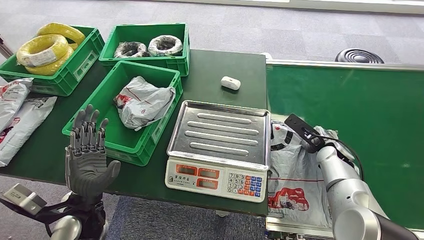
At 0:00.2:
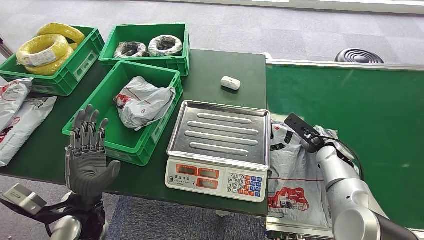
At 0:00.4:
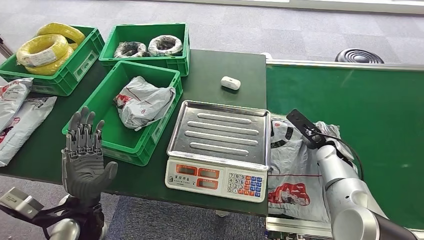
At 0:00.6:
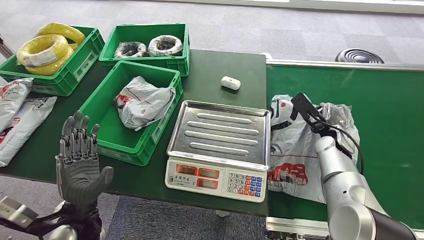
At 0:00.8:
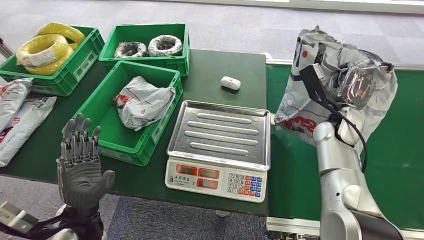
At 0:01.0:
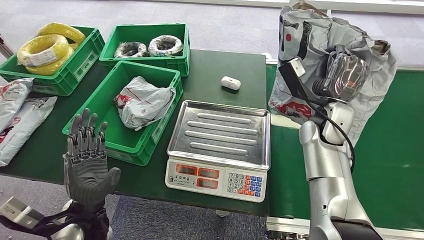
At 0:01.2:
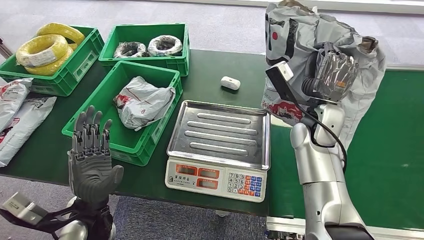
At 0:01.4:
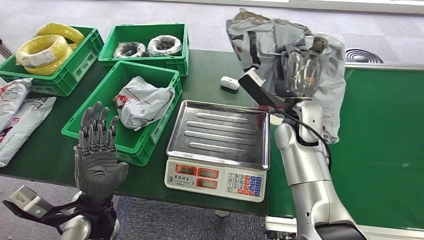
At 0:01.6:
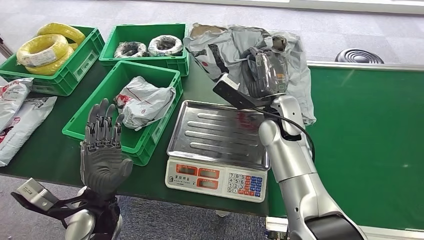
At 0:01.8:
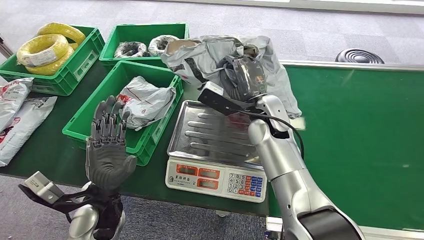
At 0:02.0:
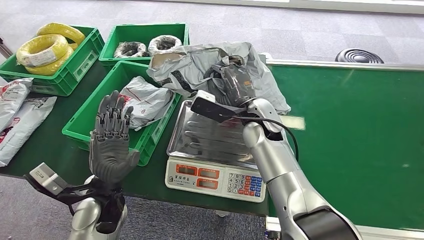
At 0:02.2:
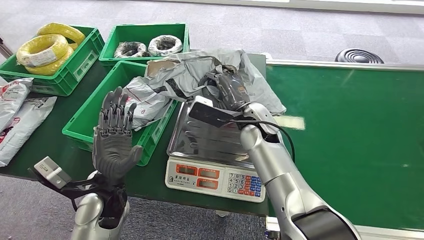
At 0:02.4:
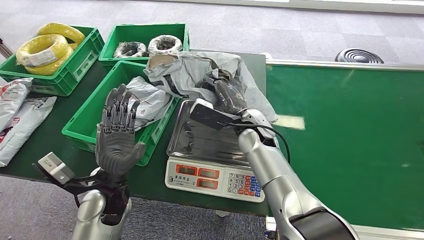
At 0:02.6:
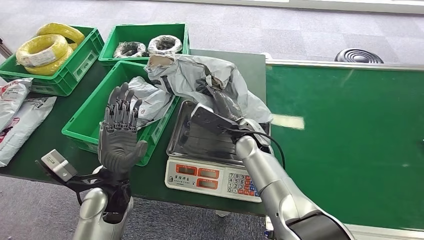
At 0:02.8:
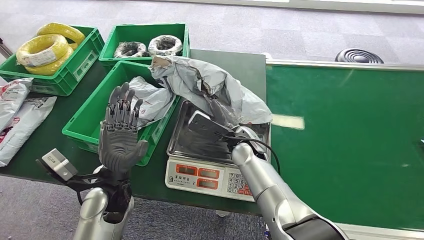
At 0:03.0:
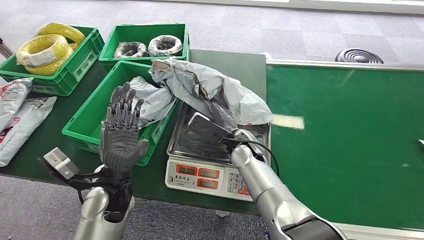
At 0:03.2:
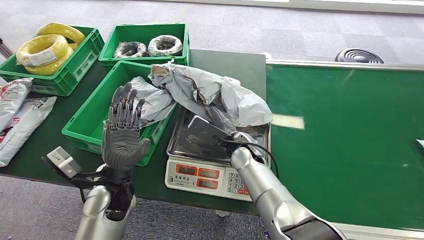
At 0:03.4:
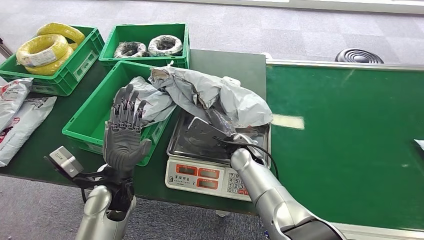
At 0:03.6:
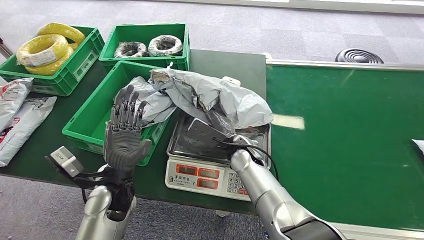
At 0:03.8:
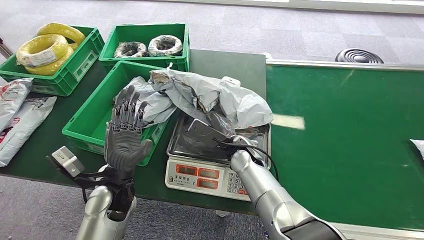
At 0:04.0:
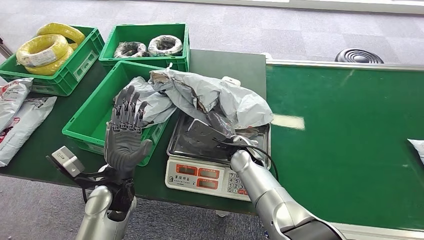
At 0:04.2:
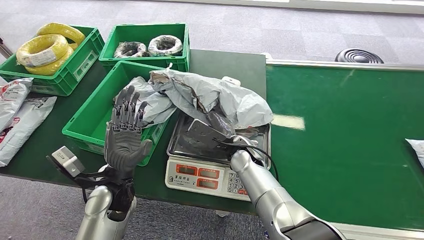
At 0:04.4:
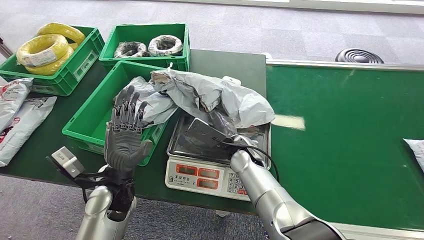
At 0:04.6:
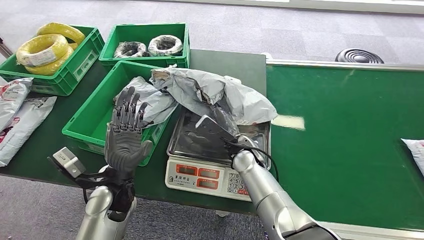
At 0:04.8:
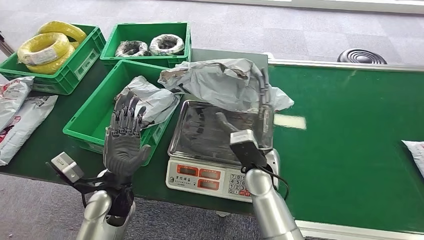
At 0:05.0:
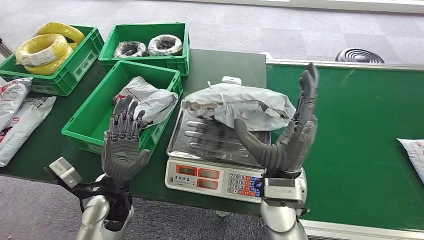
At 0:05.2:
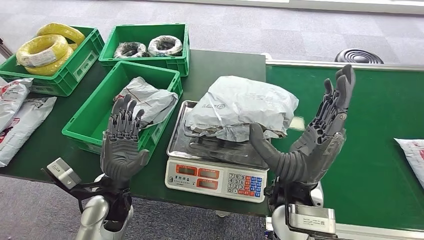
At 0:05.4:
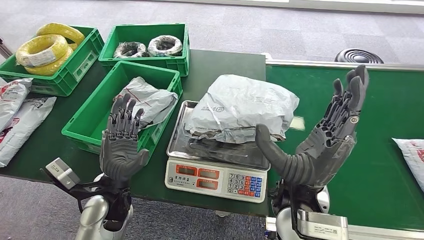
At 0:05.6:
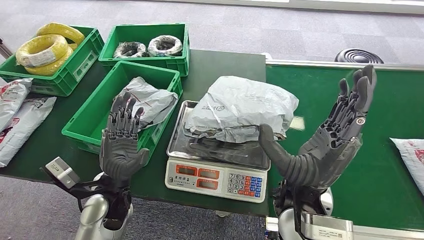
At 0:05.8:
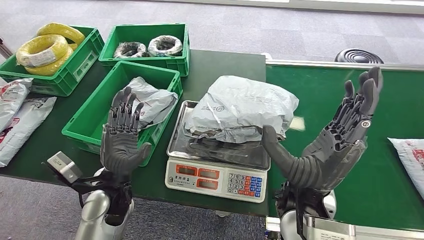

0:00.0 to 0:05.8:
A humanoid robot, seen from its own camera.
Step, 0:01.2 to 0:05.8: Place the package onto the inbound machine.
0:02.8 to 0:04.4: The hands stay close to where they were, moving slightly.
0:04.4 to 0:05.8: The right hand moves backward and upward, some 20 cm.

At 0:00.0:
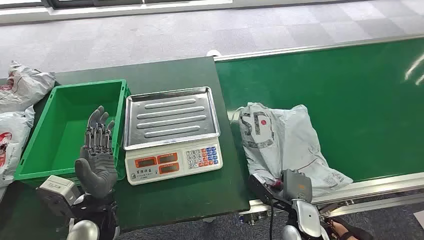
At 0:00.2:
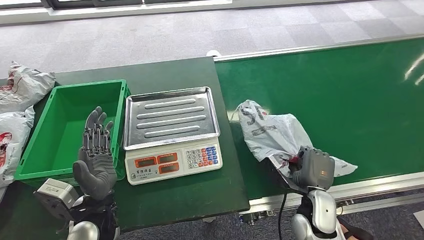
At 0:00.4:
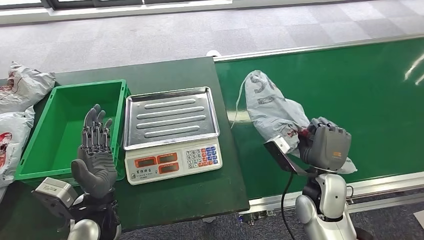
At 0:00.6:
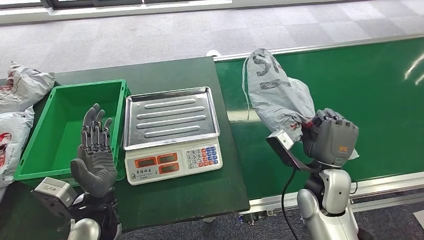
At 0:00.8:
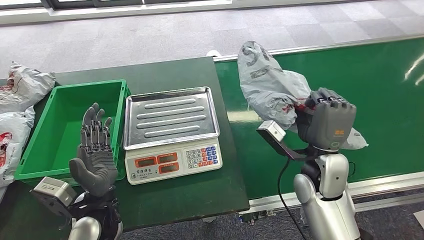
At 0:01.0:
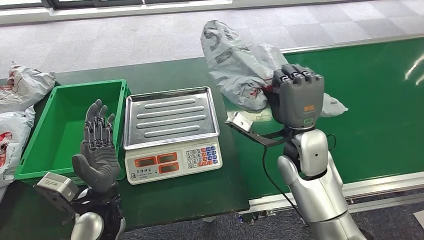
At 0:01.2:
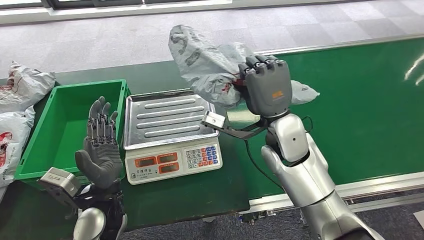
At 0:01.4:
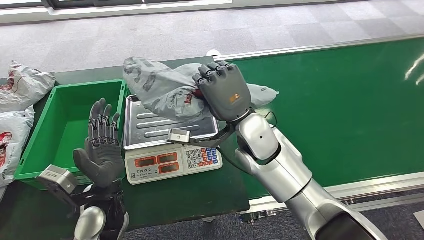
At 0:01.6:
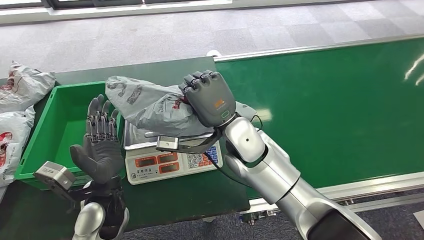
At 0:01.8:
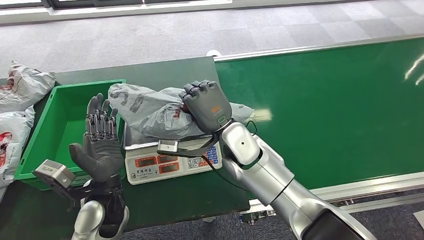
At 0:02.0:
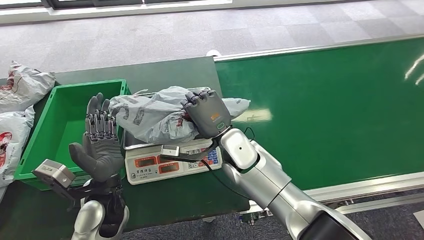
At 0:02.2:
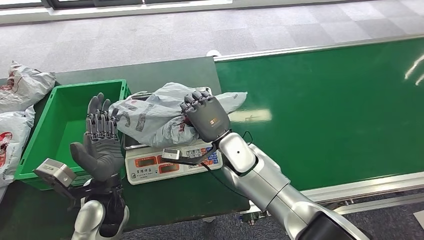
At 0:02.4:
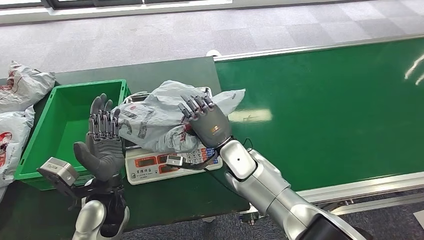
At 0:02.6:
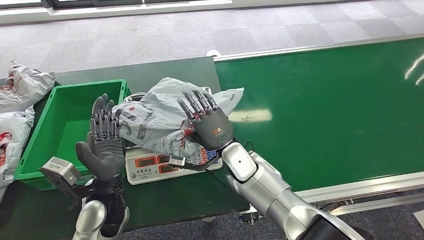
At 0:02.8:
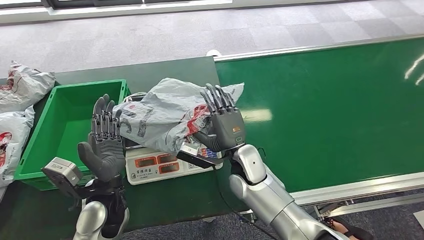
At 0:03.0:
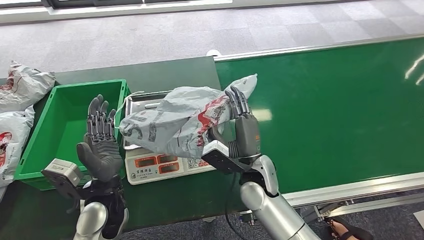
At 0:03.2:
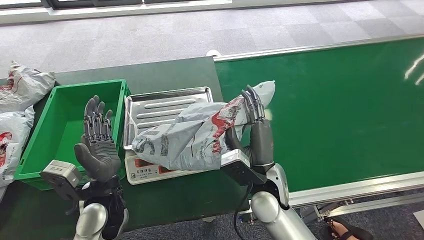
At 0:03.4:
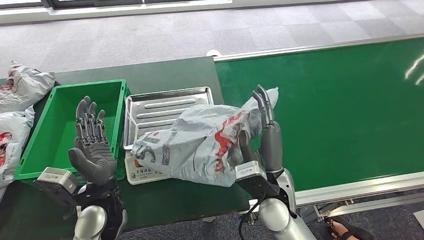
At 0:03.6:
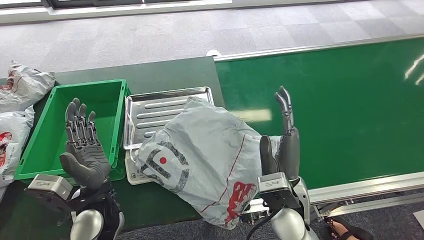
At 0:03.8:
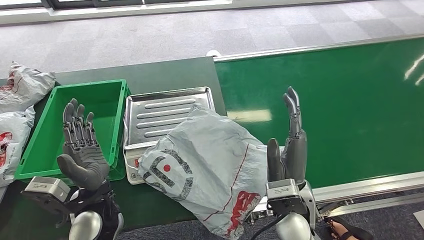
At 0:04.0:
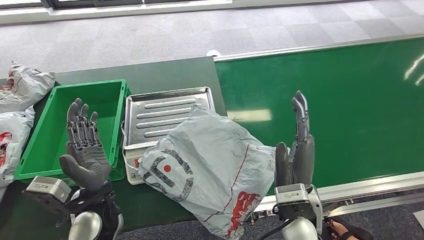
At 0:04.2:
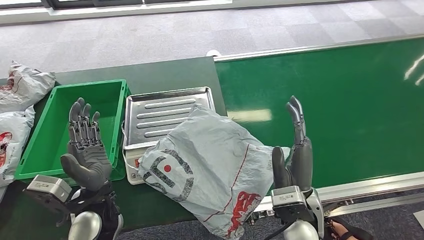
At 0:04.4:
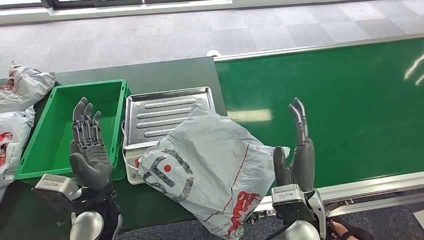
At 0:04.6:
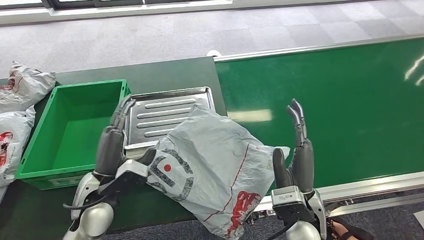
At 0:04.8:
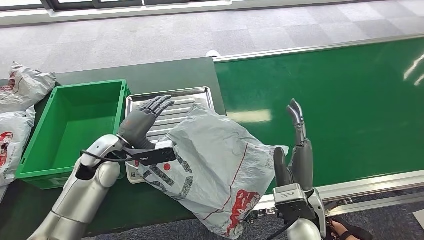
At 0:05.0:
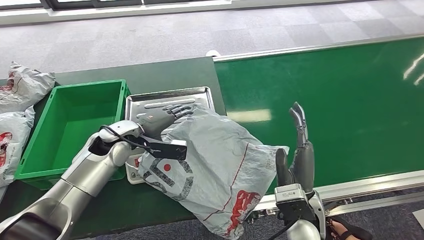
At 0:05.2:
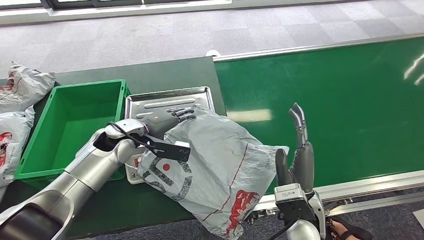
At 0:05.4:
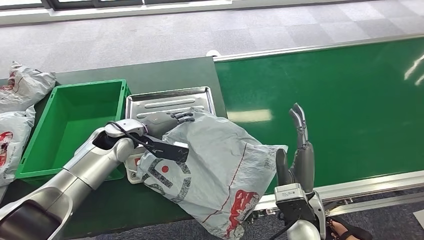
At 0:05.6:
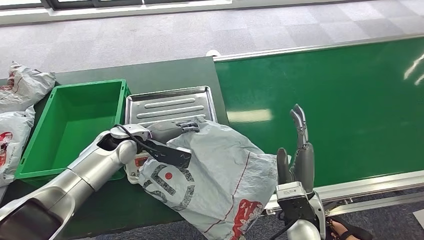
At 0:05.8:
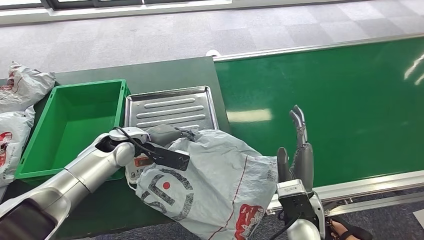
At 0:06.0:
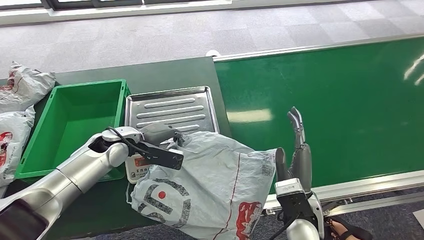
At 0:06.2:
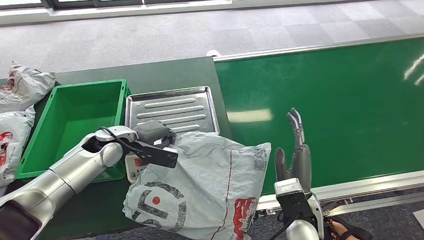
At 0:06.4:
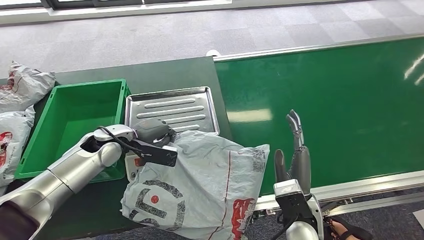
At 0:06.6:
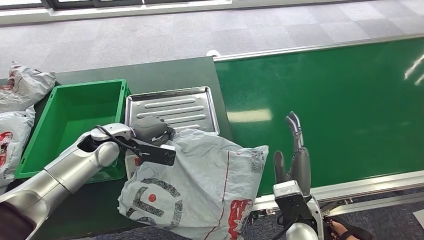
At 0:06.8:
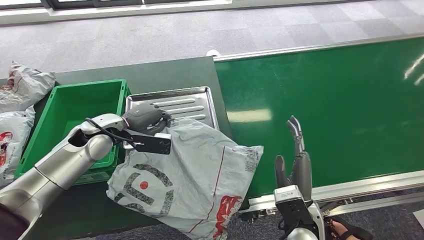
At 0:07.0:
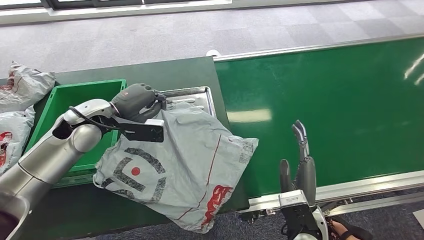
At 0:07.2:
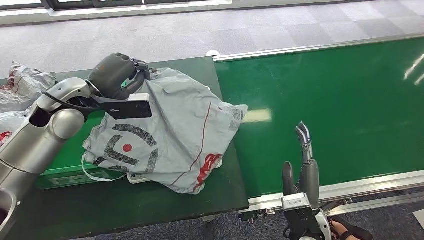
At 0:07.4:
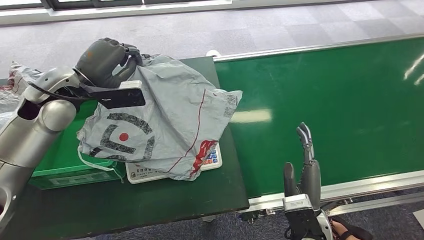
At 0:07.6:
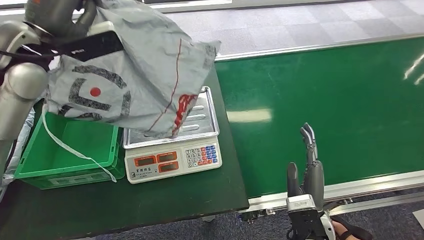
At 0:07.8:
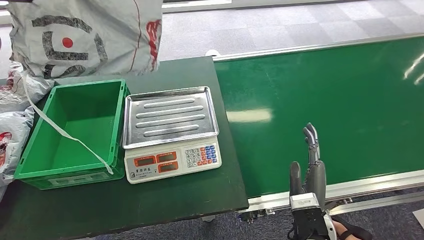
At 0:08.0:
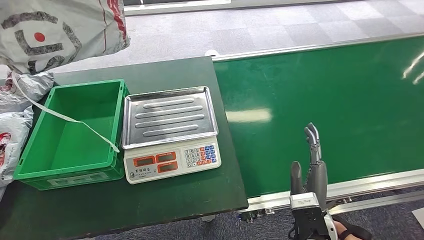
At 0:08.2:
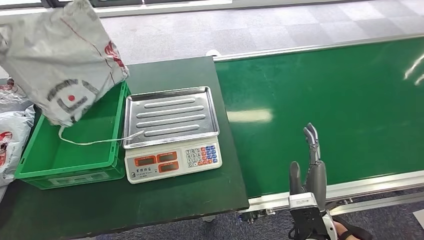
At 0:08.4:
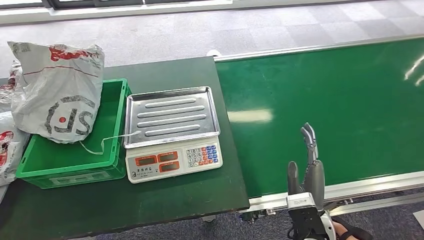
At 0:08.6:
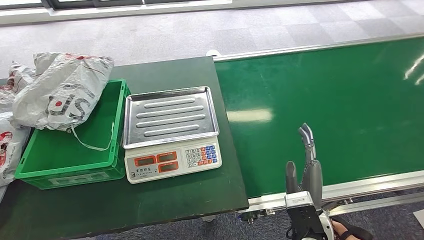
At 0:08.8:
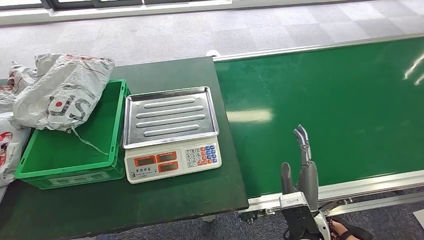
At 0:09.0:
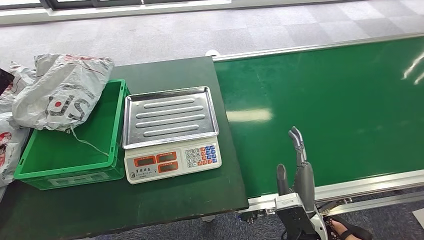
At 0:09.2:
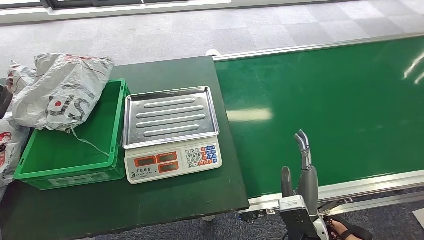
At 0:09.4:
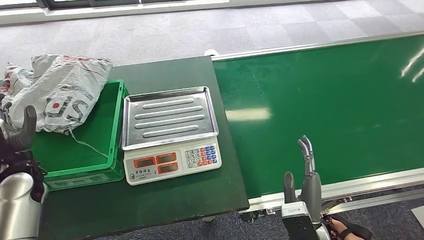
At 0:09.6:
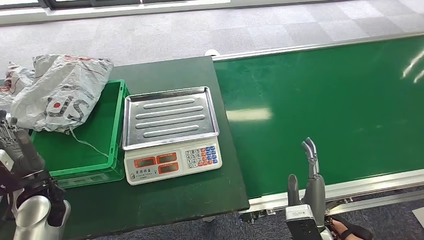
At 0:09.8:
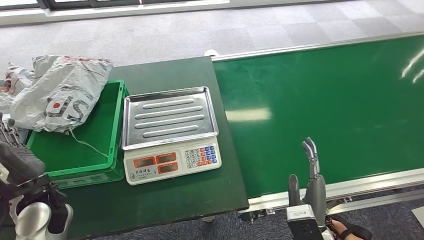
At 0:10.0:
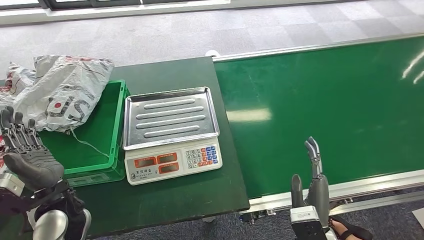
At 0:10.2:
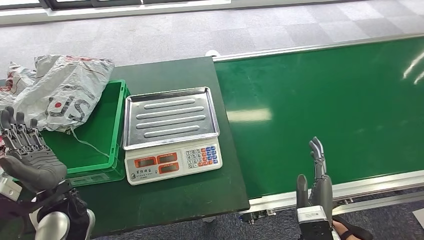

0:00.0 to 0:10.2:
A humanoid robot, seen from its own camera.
Step, 0:00.0 to 0:01.4: Pick up the package from the conveyor belt.
Step, 0:01.6 to 0:04.4: Place the package onto the inbound machine.
Step, 0:04.8 to 0:07.6: Pick up the package from the inbound machine.
Step, 0:07.8 to 0:10.2: Place the package into the parcel locker.
0:01.4 to 0:03.0: The right hand is displaced downward and backward by about 15 cm.
0:04.4 to 0:05.8: The left hand is displaced forward by about 15 cm.
0:08.8 to 0:10.2: The left hand shifts roughly 40 cm to the right, downward and backward.
